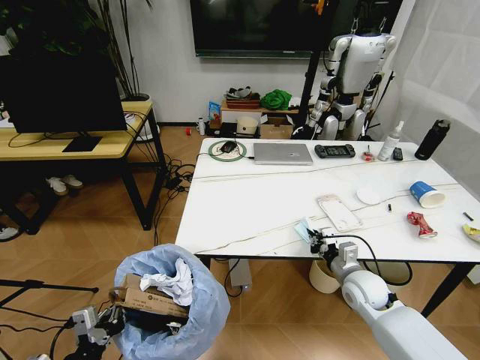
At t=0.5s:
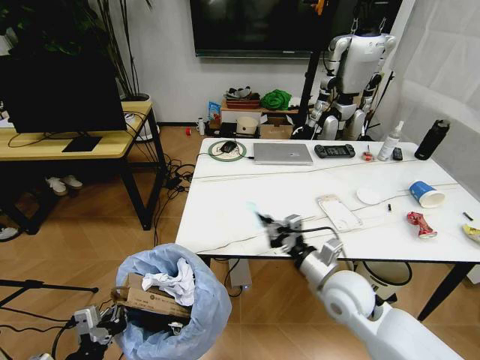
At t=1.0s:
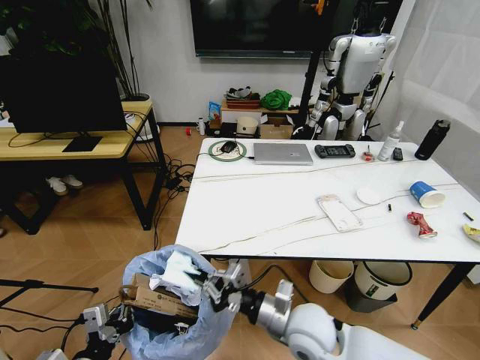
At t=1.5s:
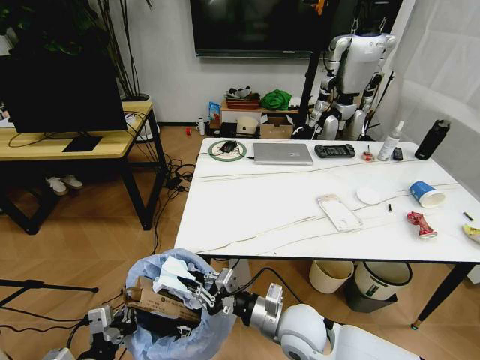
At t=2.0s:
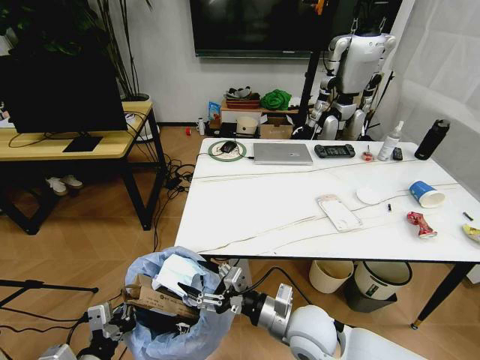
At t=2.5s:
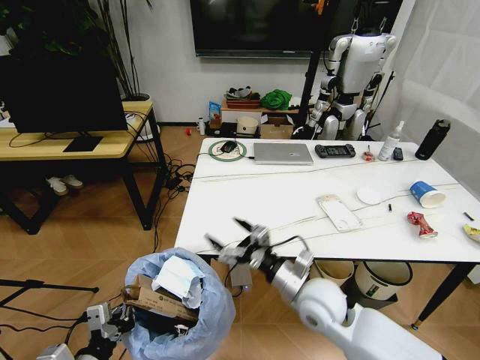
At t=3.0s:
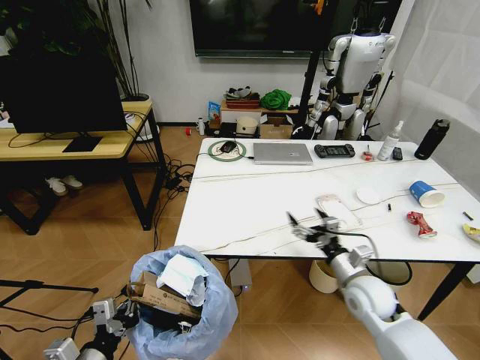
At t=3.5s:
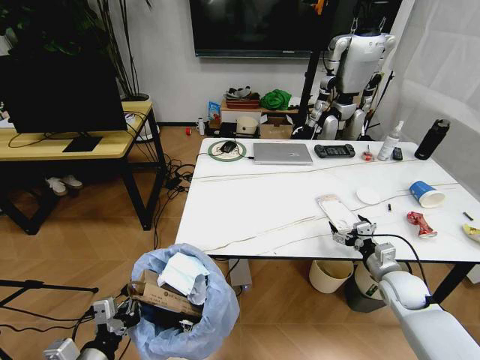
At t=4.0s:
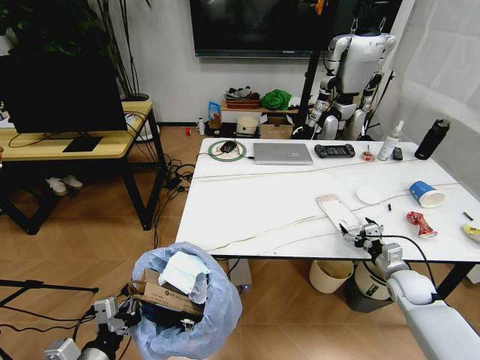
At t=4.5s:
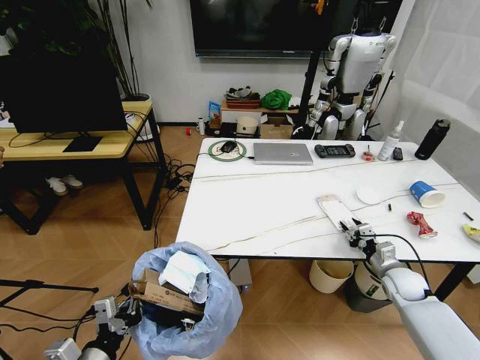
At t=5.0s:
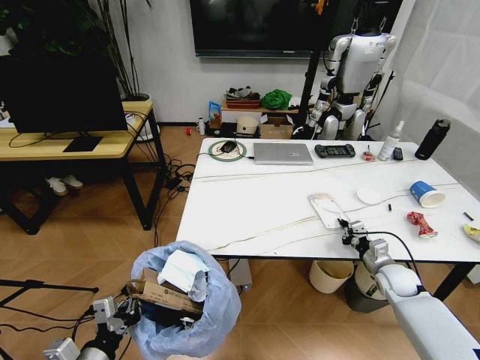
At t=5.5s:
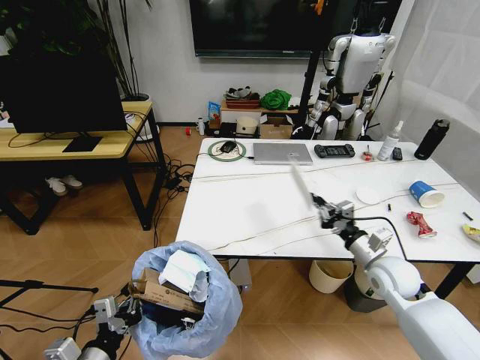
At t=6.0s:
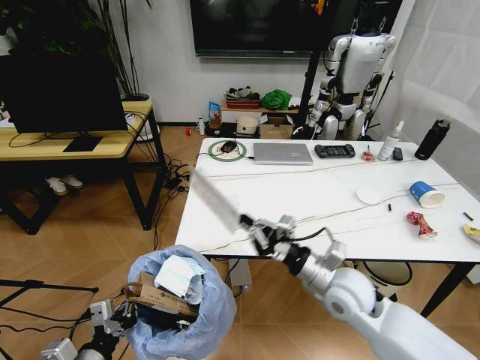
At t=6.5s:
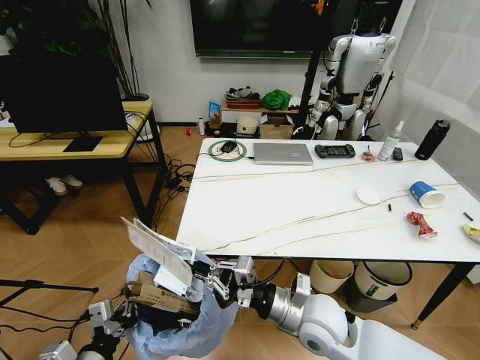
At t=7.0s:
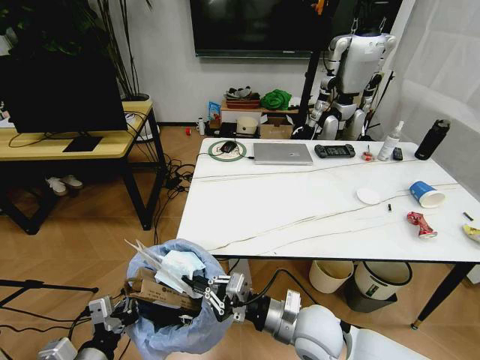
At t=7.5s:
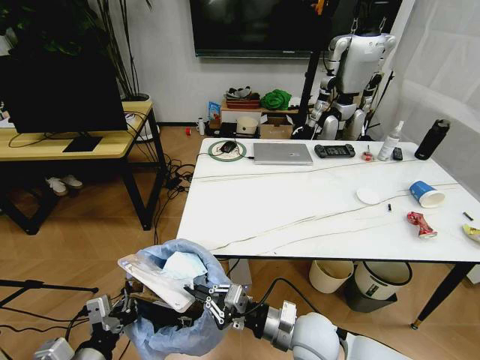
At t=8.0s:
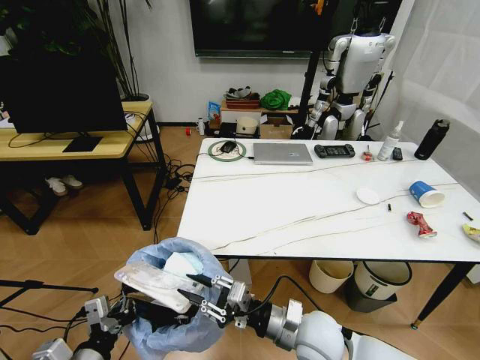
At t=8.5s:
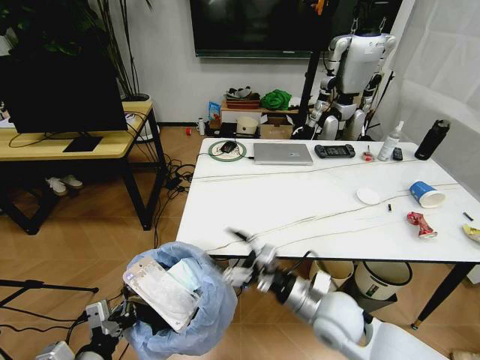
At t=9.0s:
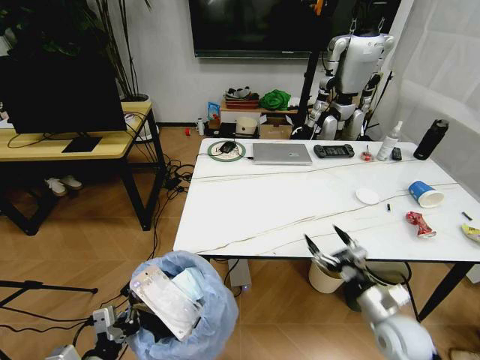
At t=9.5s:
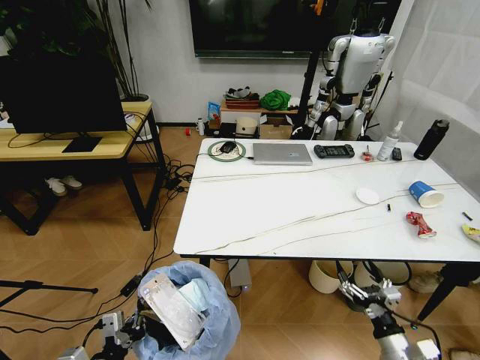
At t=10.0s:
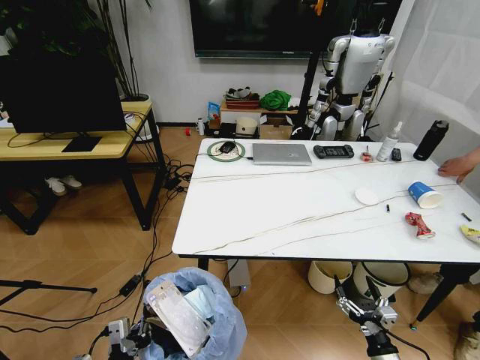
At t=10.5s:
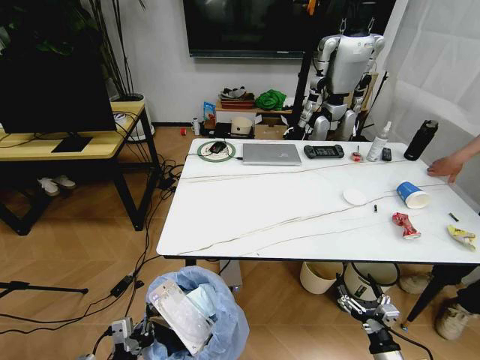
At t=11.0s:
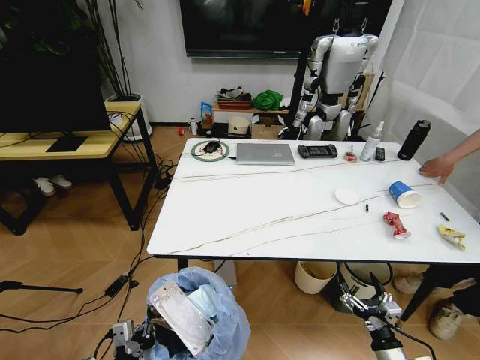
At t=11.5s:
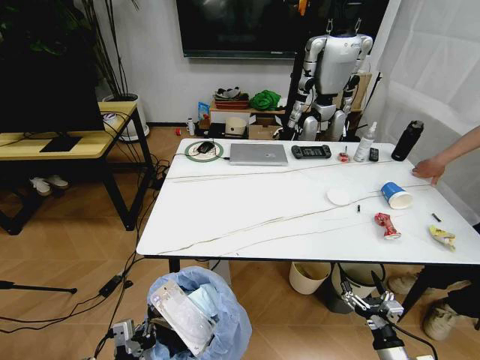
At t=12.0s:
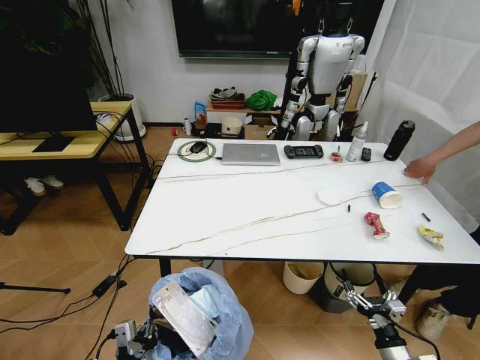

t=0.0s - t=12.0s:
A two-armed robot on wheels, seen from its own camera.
Task of the whole recording: Pick up the trash bin and place the trash from the table into it.
t=0.0s - t=2.0s: The right gripper is displaced to the left and backward by some 20 cm, and opens its fingers.
t=2.0s - t=4.0s: The right gripper is displaced to the right by about 30 cm.
t=4.0s - t=6.0s: The right gripper shifts roughly 30 cm to the left and upward, and closes its fingers.
t=6.0s - t=8.0s: The right gripper is displaced backward, to the left and downward by some 10 cm.
t=8.0s - t=10.0s: The left gripper goes approximately 5 cm downward. Meanwhile the right gripper travels to the right, downward and backward by about 25 cm, and opens up.

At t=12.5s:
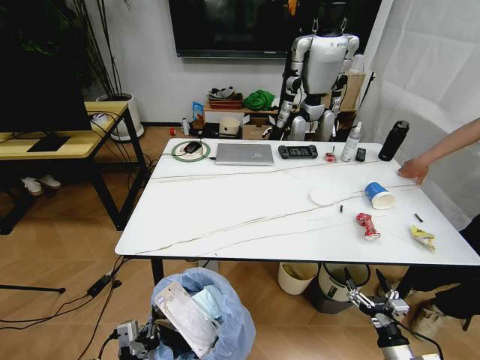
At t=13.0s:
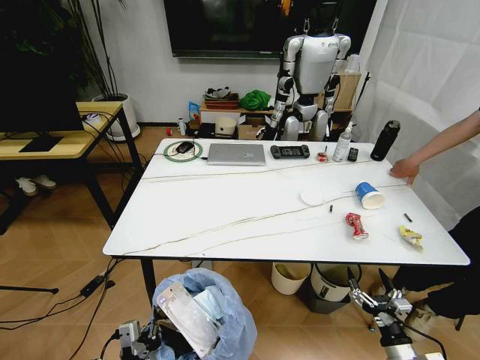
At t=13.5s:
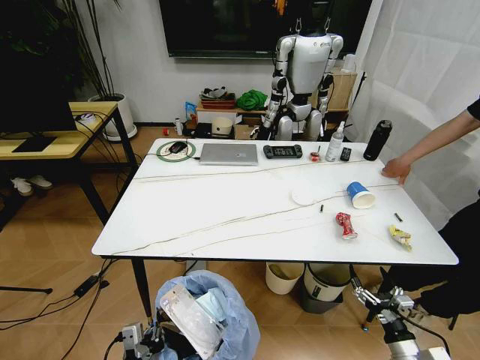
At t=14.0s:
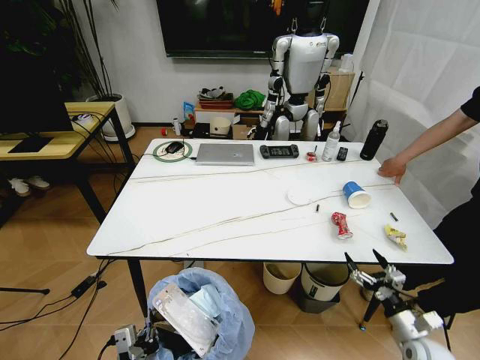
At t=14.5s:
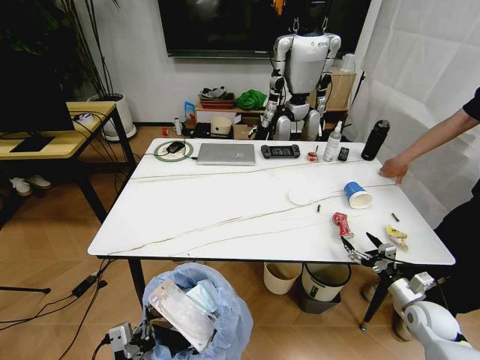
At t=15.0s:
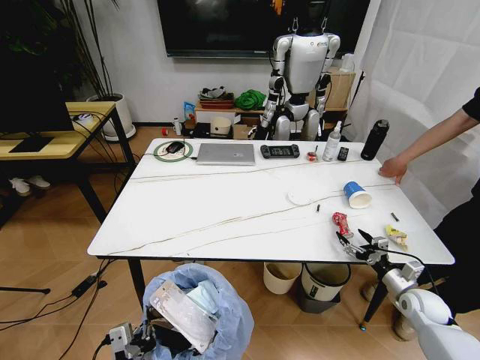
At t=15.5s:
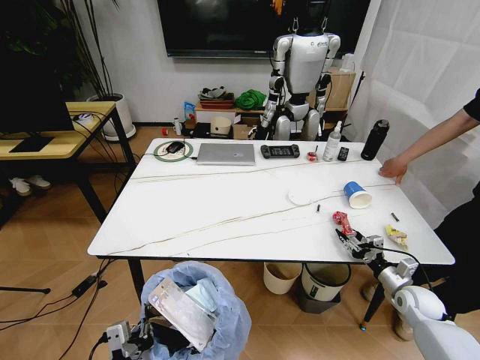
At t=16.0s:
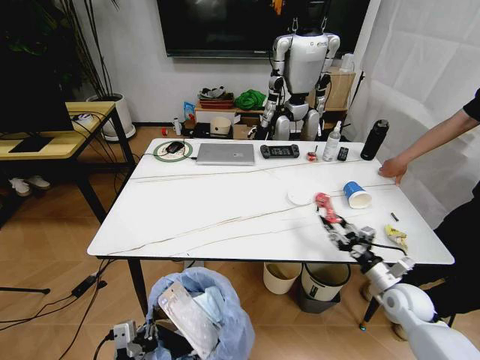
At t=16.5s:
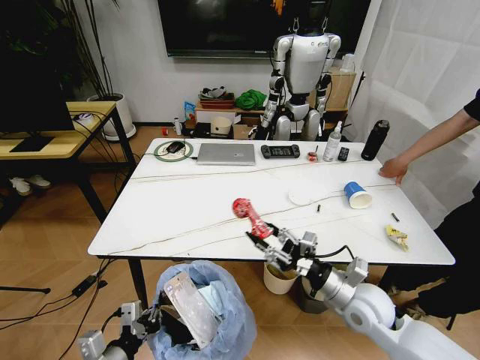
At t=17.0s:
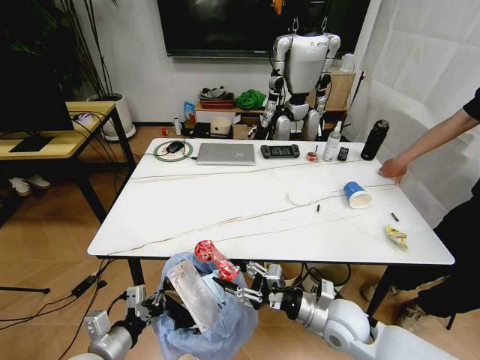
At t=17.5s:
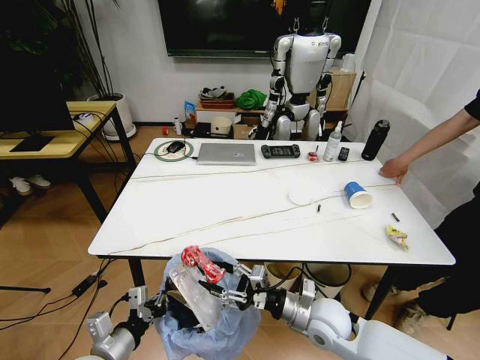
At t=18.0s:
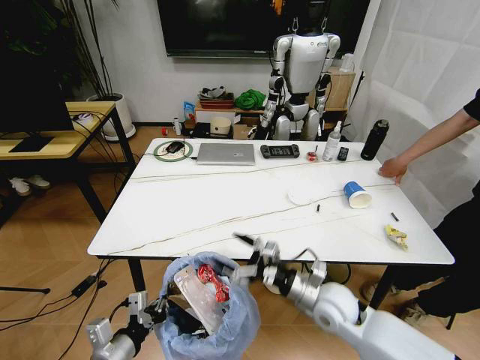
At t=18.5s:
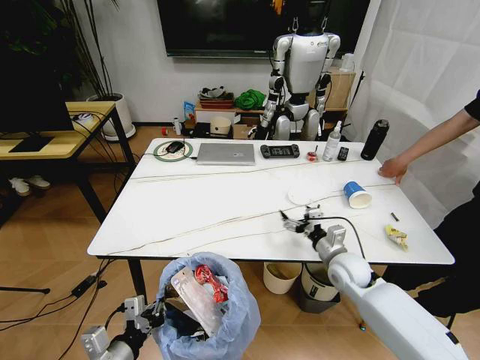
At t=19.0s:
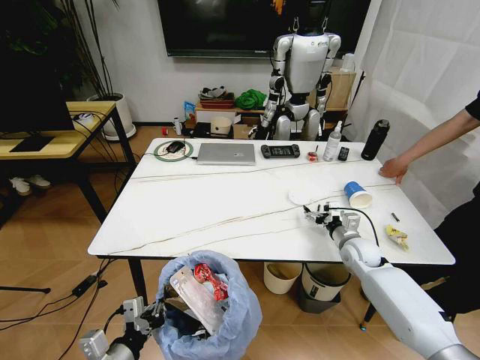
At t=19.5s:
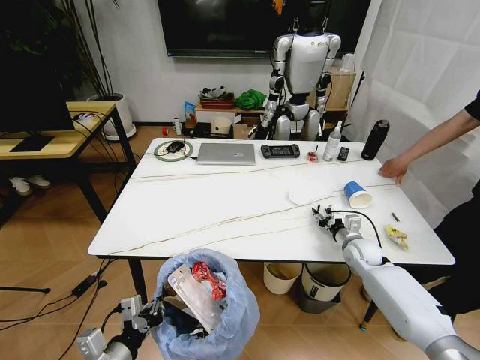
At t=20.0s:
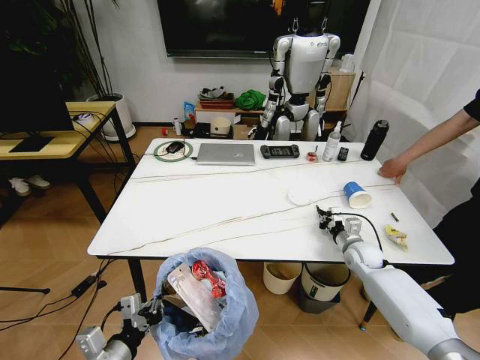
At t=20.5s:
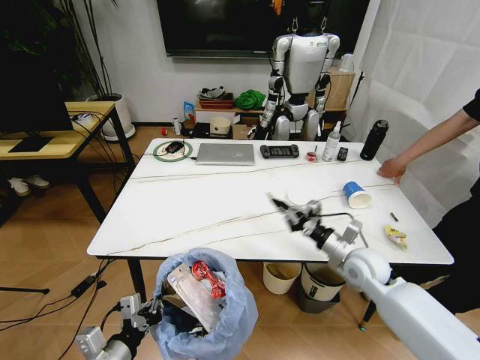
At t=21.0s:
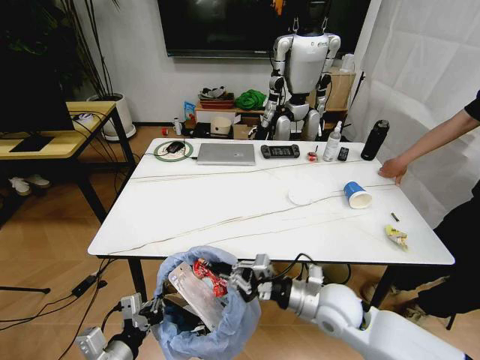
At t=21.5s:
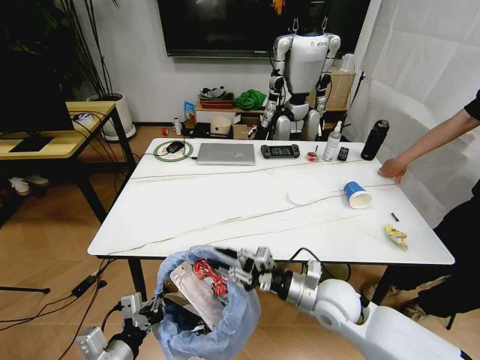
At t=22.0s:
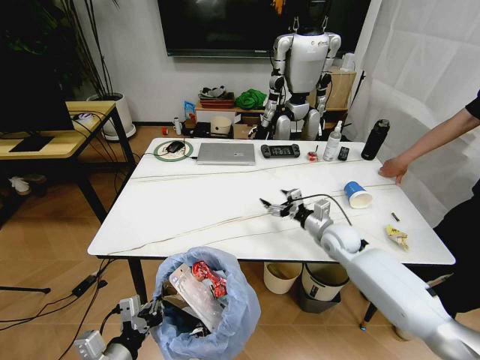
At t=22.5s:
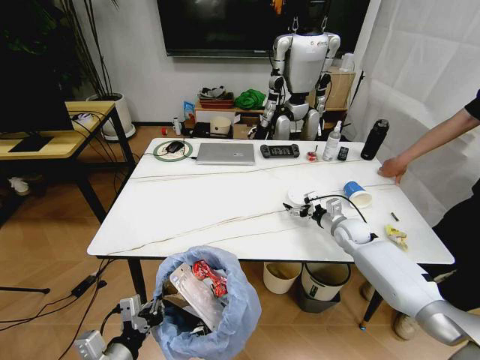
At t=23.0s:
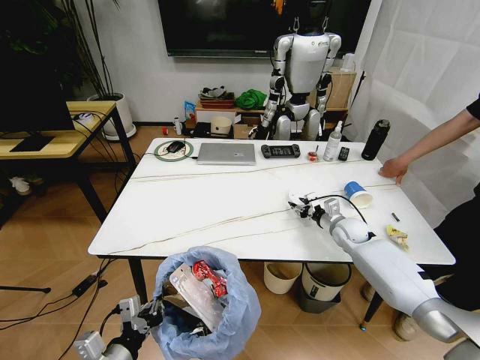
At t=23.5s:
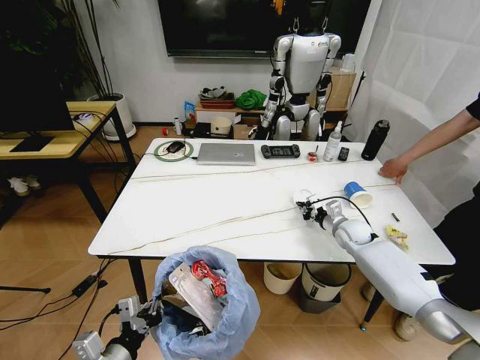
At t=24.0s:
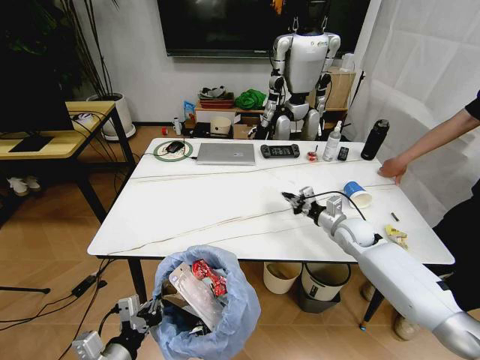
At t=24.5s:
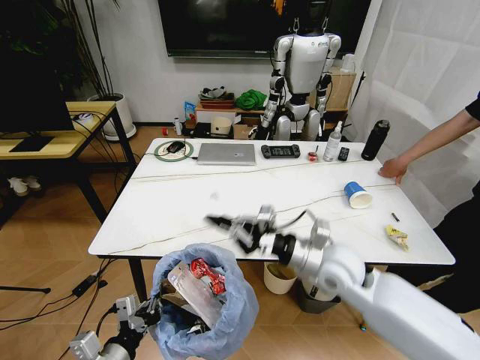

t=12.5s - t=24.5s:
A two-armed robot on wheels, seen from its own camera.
Task of the whole recording: Pick up the trash bin and place the trash from the table into it.
t=12.5s - t=14.5s: The right gripper shifts approximately 20 cm forward and to the right.
t=14.5s - t=16.5s: The right gripper moves to the left and upward, about 25 cm, and closes. Meanwhile the left gripper travels forward by some 5 cm.
t=16.5s - t=18.5s: The right gripper shifts some 10 cm forward, and opens its fingers.
t=18.5s - t=20.5s: The right gripper travels upward by about 5 cm, and closes its fingers.
t=20.5s - t=22.5s: The right gripper goes about 15 cm forward and downward, and opens.
t=22.5s - t=24.5s: The right gripper travels backward, to the left and upward by approximately 25 cm, and closes up.

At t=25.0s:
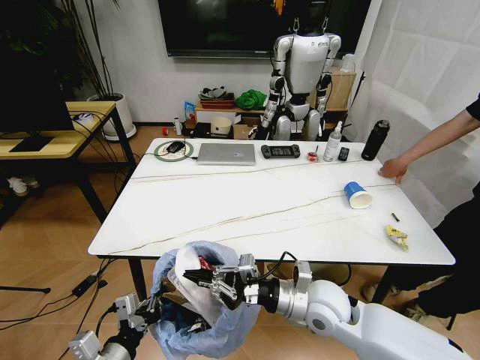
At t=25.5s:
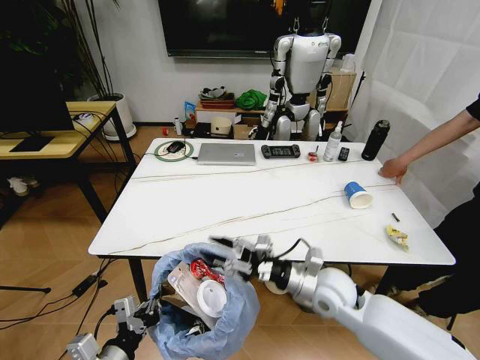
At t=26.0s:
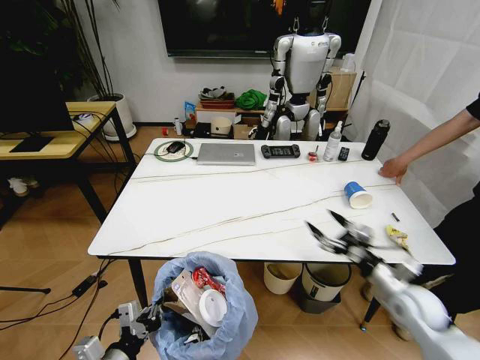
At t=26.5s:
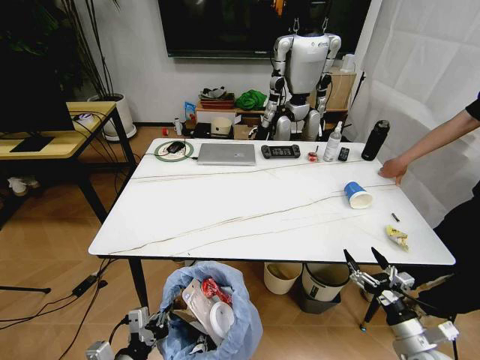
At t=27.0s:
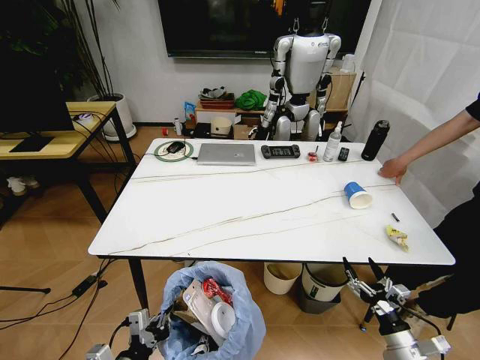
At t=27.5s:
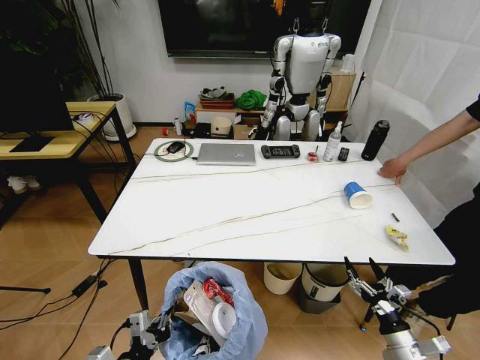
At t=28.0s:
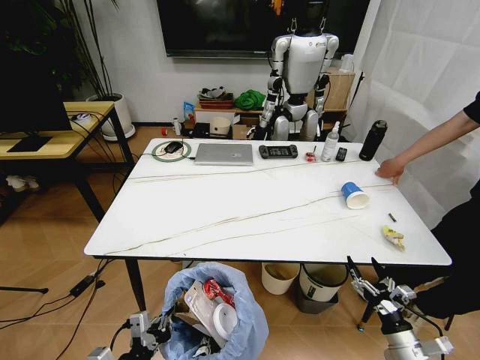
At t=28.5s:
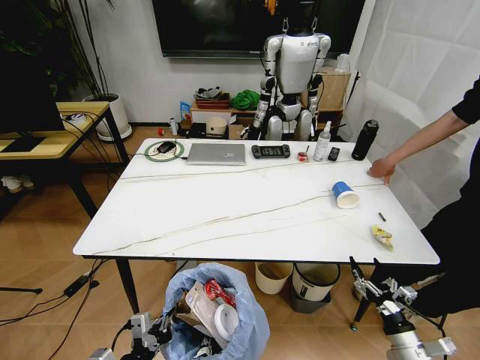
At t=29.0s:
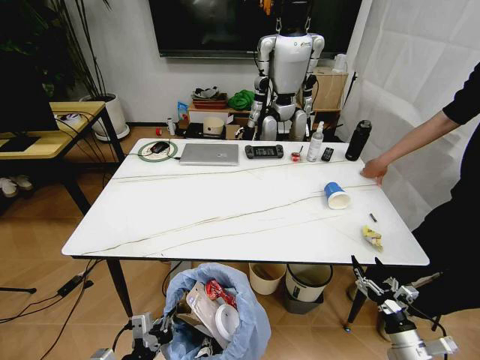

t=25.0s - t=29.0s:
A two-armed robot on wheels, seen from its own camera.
Task of the whole recording: Pick up the trash bin and place the trash from the table into it.
t=25.0s - t=27.0s: The right gripper shifts roughly 30 cm to the right, downward and backward, and opens up; the left gripper moves approximately 5 cm.
